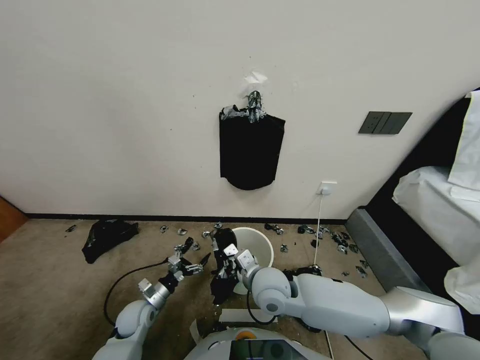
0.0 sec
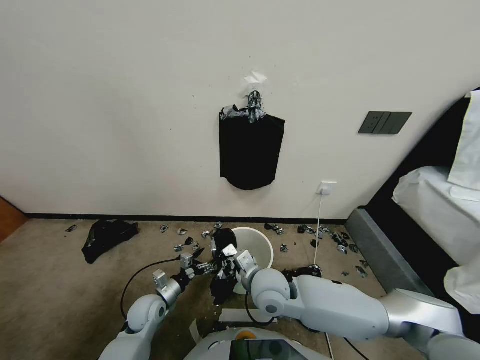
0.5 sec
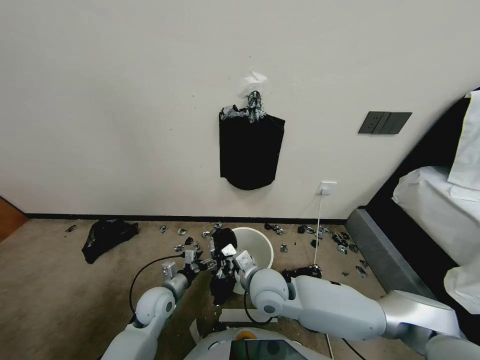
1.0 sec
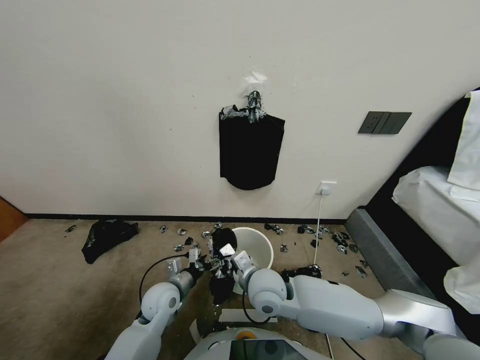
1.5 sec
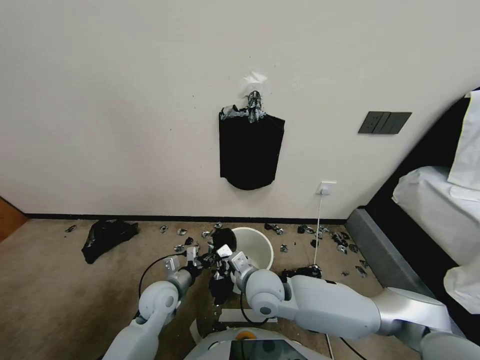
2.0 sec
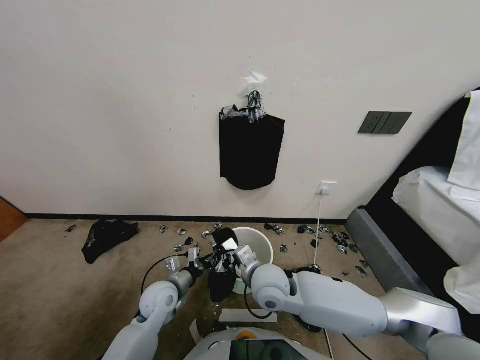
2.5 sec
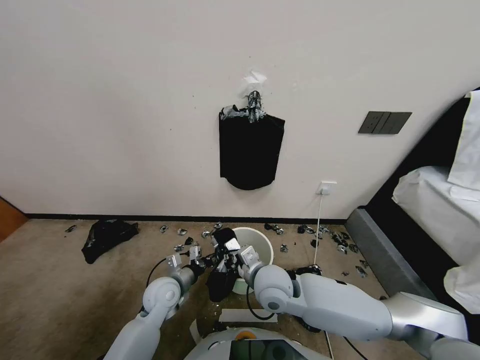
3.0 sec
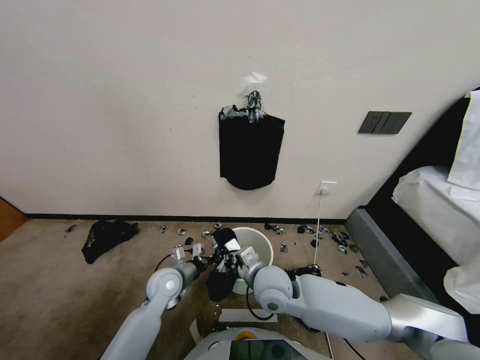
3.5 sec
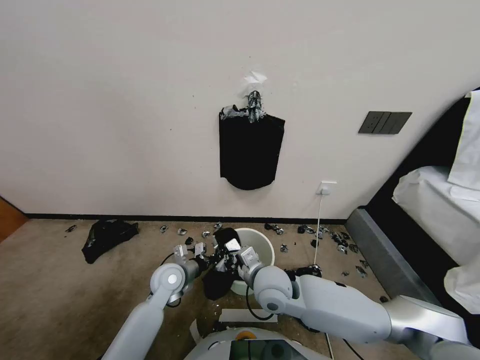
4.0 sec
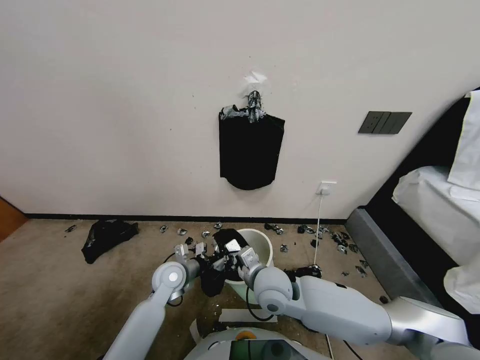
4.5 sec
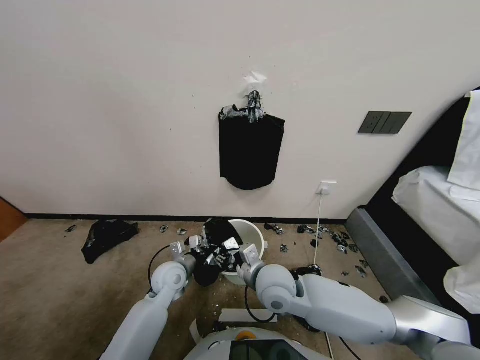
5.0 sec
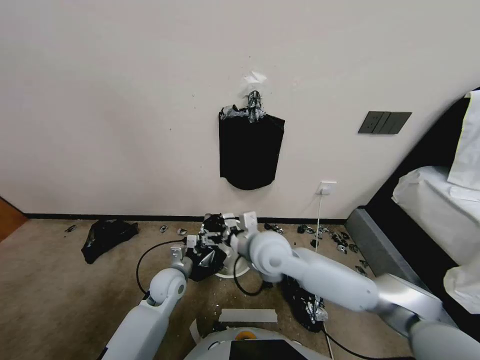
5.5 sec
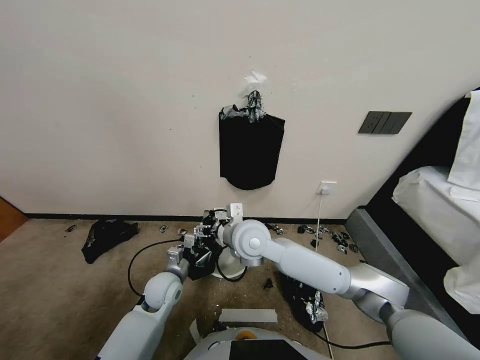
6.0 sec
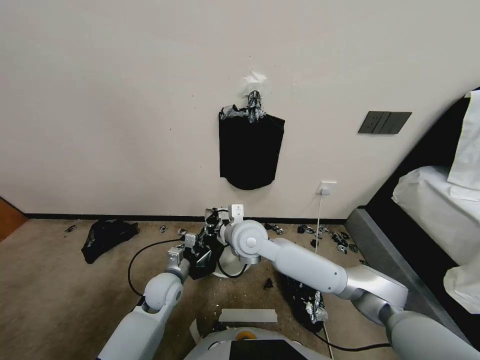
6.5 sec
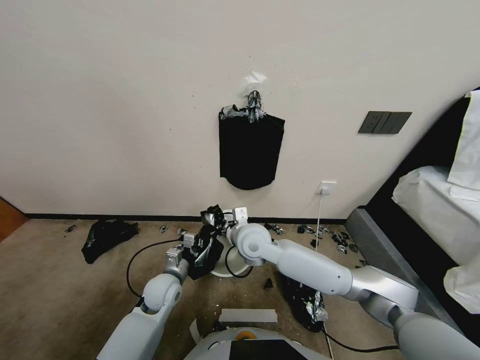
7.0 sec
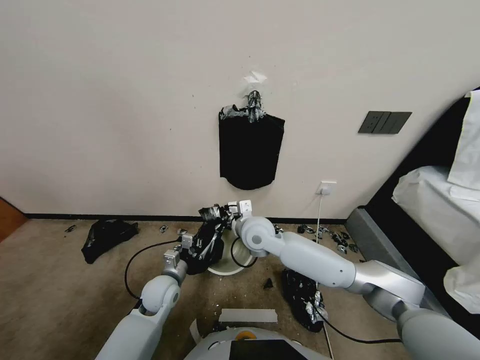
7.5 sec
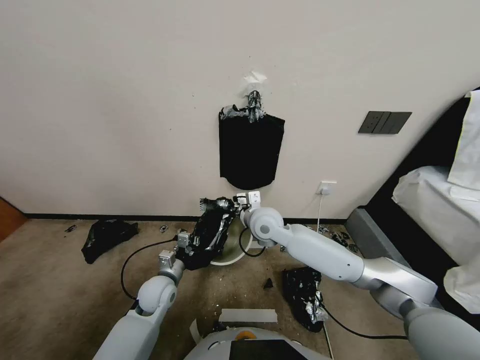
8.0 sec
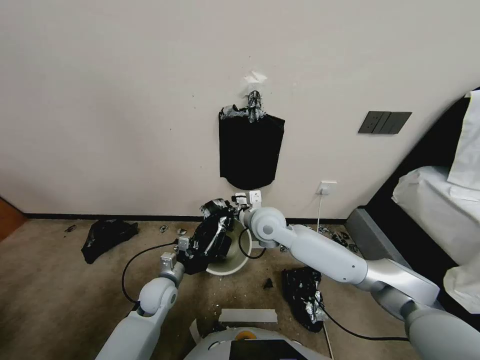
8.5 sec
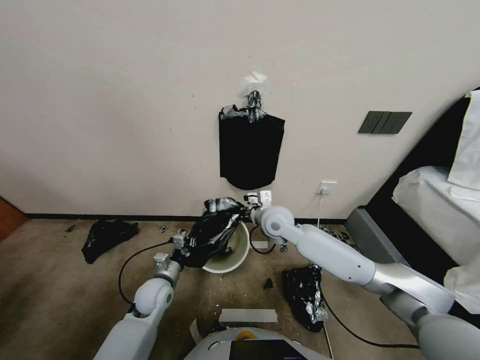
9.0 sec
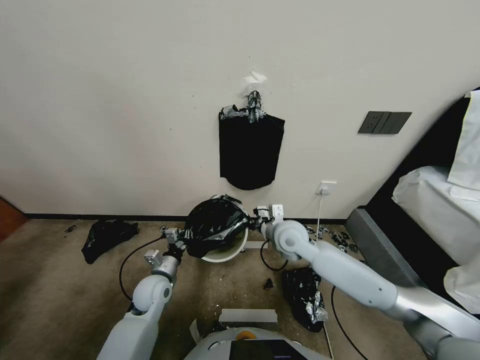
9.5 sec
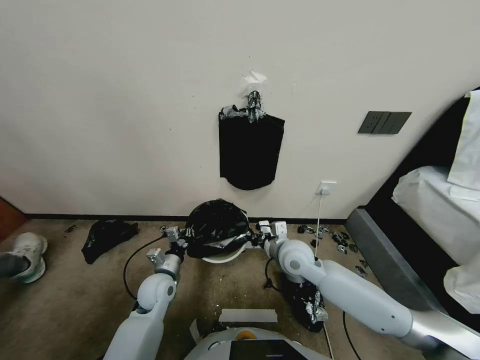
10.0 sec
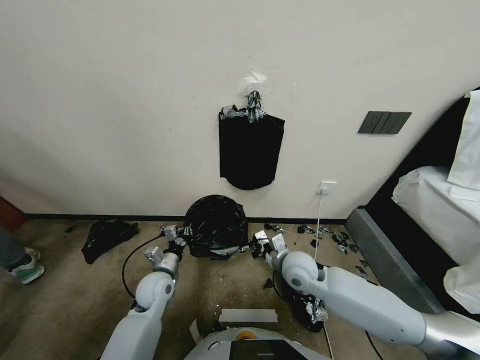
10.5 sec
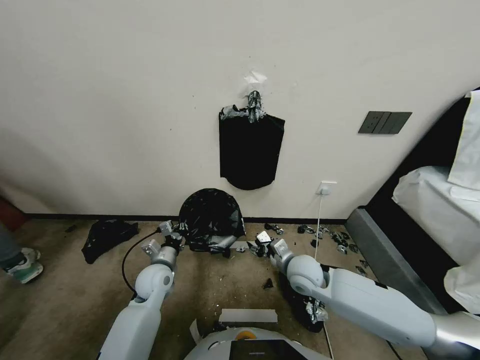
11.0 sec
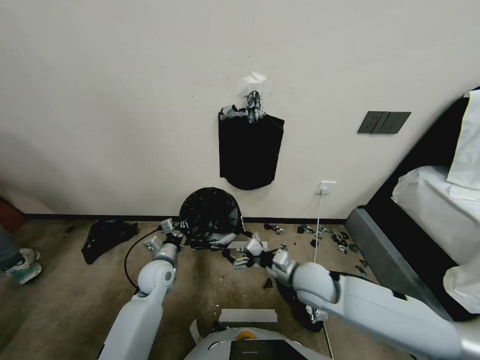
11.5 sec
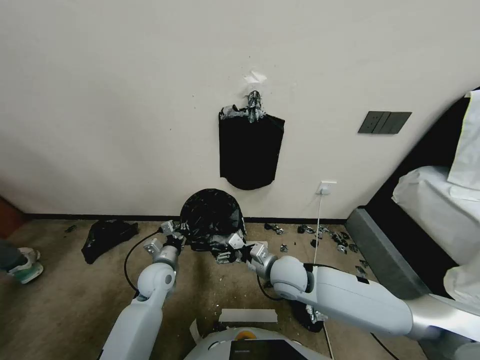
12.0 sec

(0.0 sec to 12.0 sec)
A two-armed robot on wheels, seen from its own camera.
Task of the whole recording: Place a trash bag onto the trash bin.
0.0 sec - 2.0 sec: The left gripper shifts roughly 10 cm upward and to the right, and closes its fingers.
2.0 sec - 4.0 sec: The left gripper heads forward, covering about 5 cm.
4.0 sec - 6.0 sec: The right gripper goes some 15 cm forward, upward and to the left, and opens its fingers.
6.0 sec - 8.0 sec: The right gripper travels to the right and forward by about 10 cm, and closes.
8.0 sec - 10.0 sec: The right gripper travels backward, to the right and downward by roughly 15 cm.
10.0 sec - 12.0 sec: The right gripper opens.

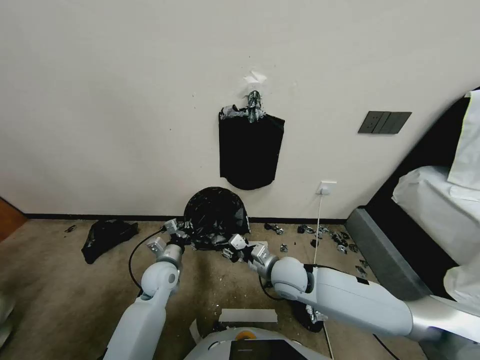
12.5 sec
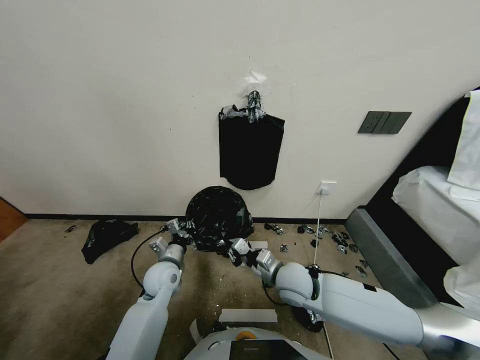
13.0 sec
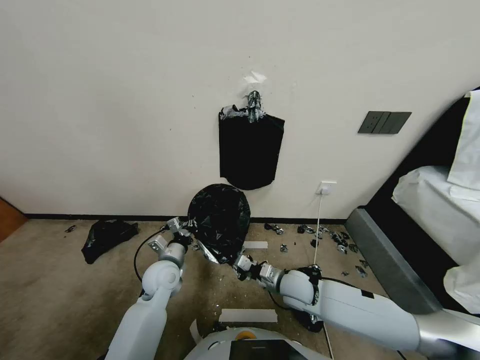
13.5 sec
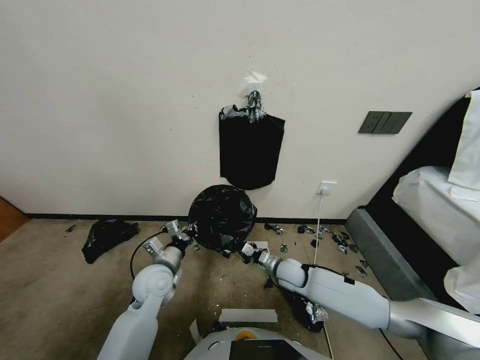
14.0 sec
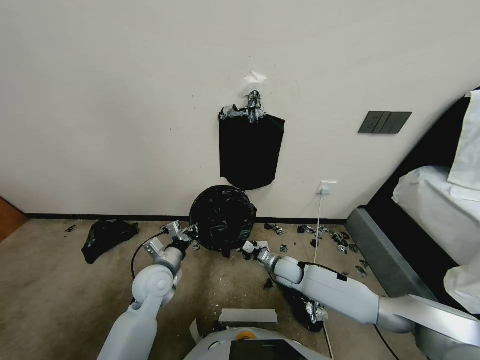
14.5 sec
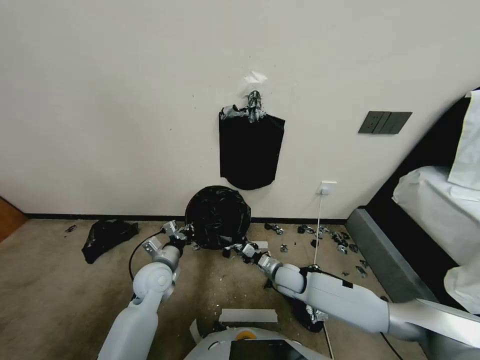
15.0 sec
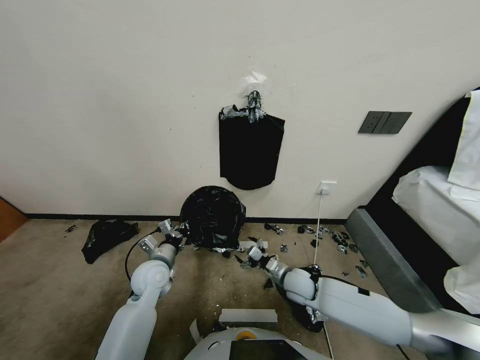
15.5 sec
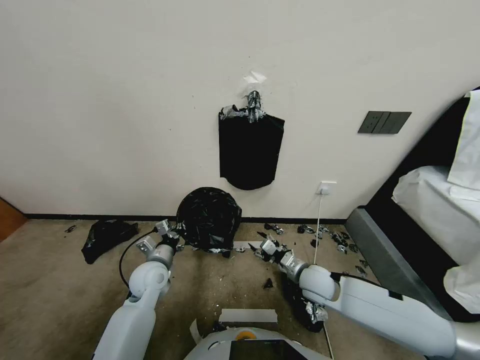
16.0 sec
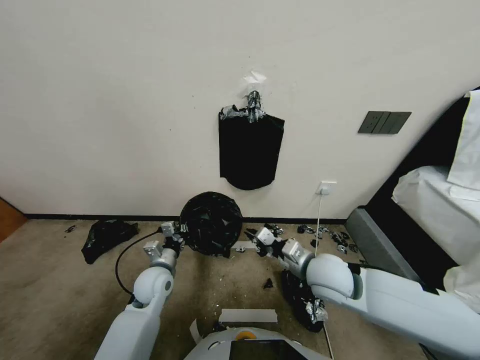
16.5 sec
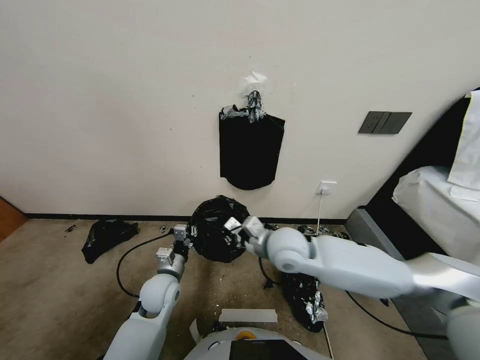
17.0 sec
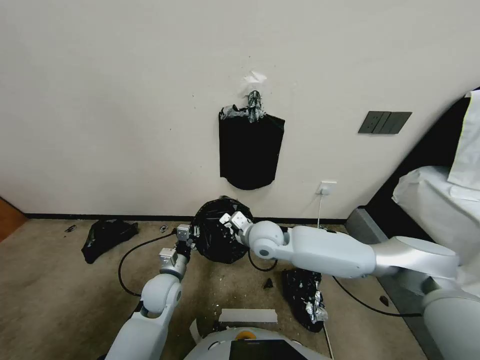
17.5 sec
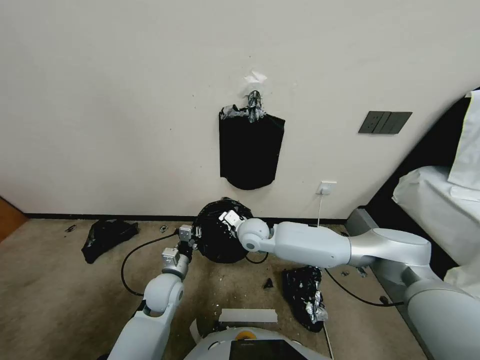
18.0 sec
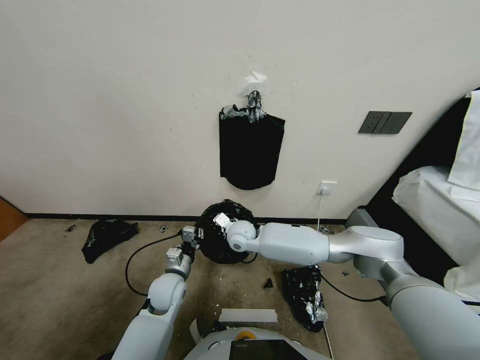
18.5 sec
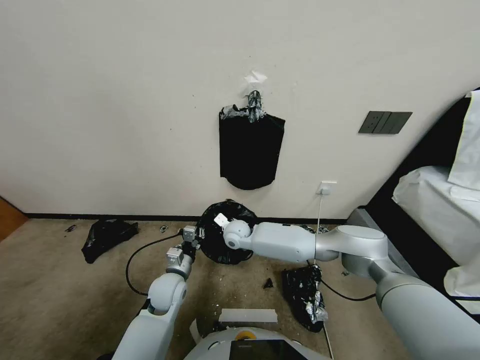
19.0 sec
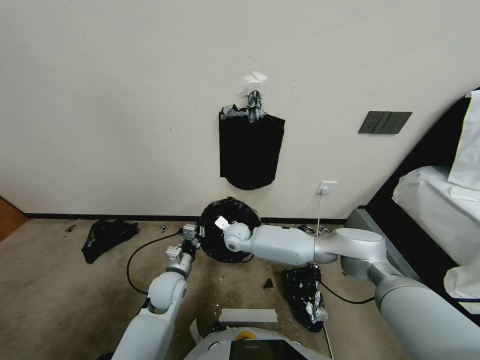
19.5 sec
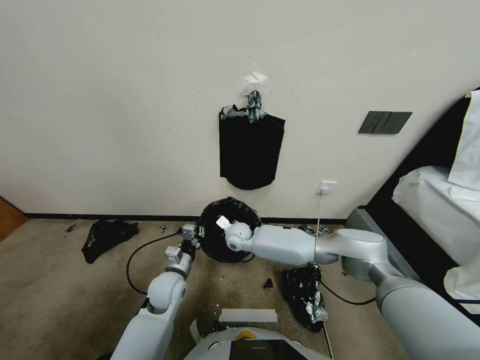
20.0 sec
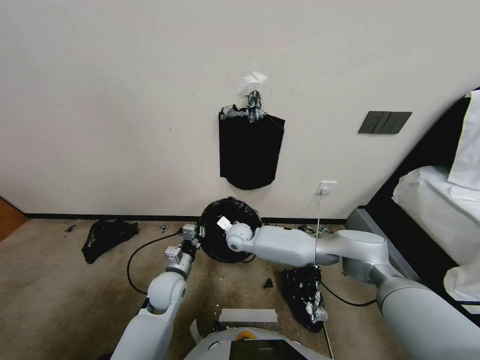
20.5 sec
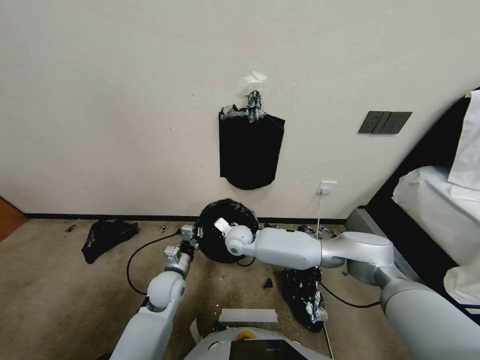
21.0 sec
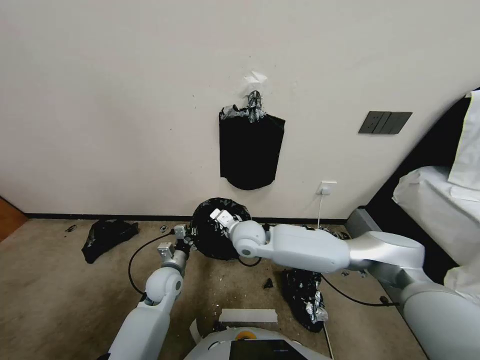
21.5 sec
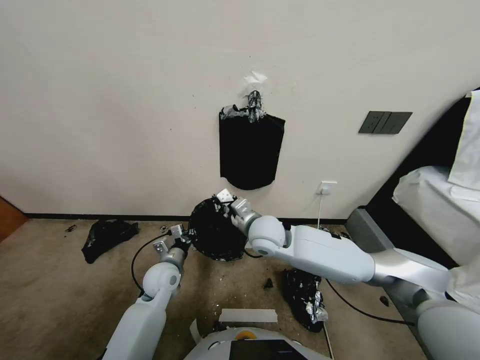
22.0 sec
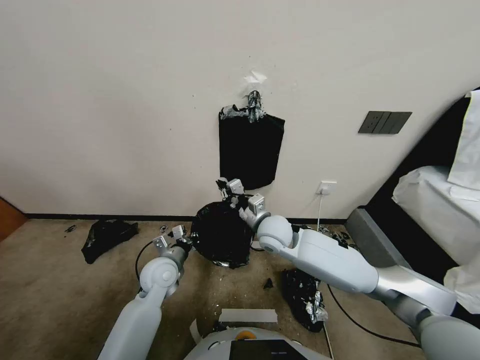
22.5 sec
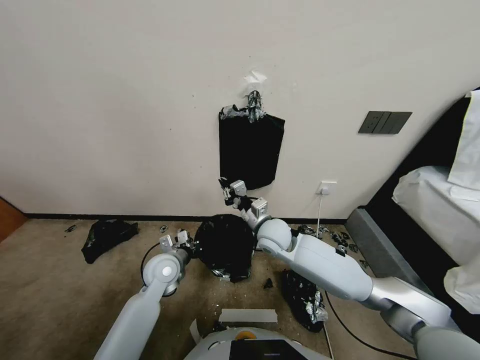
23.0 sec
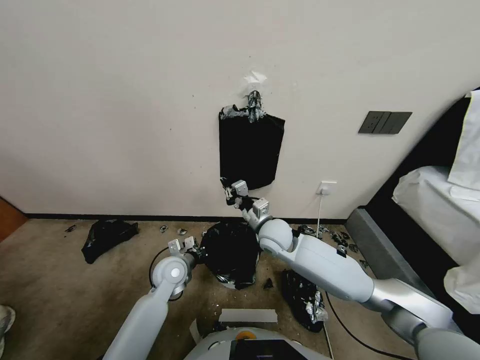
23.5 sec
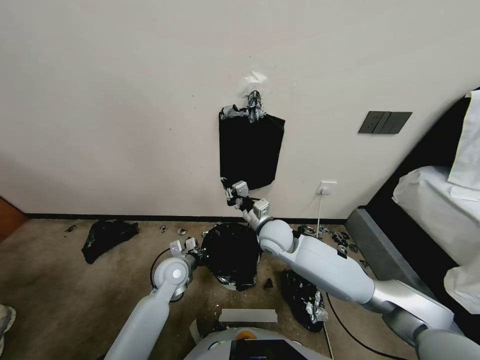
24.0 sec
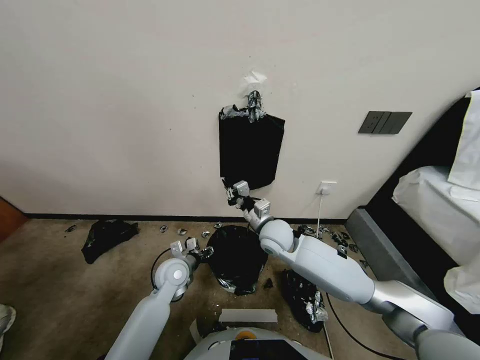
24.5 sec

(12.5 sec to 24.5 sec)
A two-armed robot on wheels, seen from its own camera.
Task of the whole recording: Place a trash bag onto the trash bin.
12.5 sec - 14.5 sec: The right gripper is displaced downward and forward by about 15 cm.
14.5 sec - 16.5 sec: The right gripper goes about 25 cm upward, and opens and closes again.
16.5 sec - 18.5 sec: The right gripper goes approximately 25 cm to the left, forward and downward.
18.5 sec - 20.5 sec: There are only small adjustments of the grippers.
20.5 sec - 22.5 sec: The left gripper changes place by roughly 5 cm. Meanwhile the right gripper goes about 15 cm upward, to the right and backward.
22.5 sec - 24.5 sec: The left gripper opens.

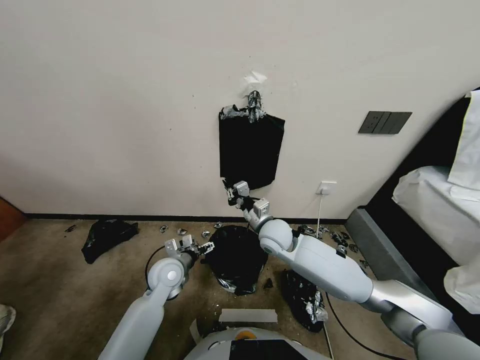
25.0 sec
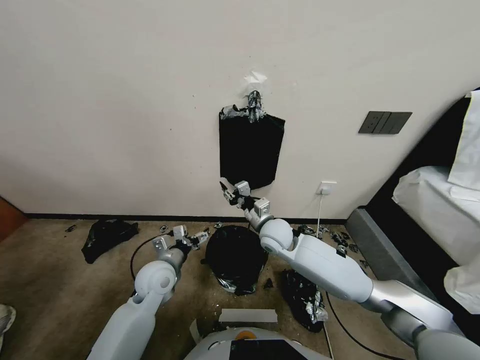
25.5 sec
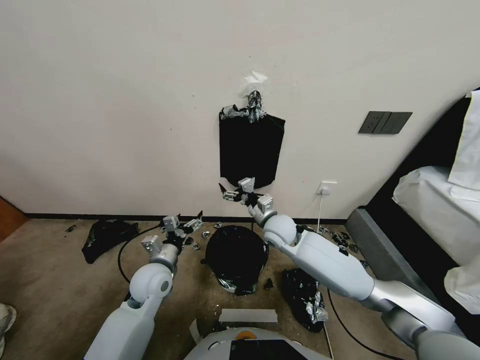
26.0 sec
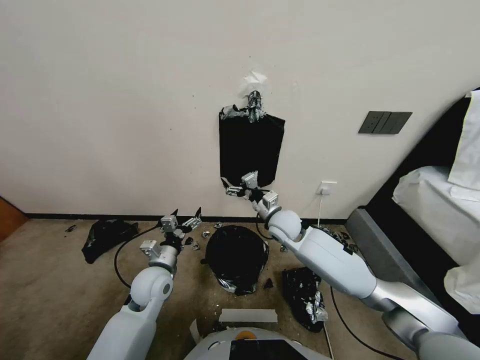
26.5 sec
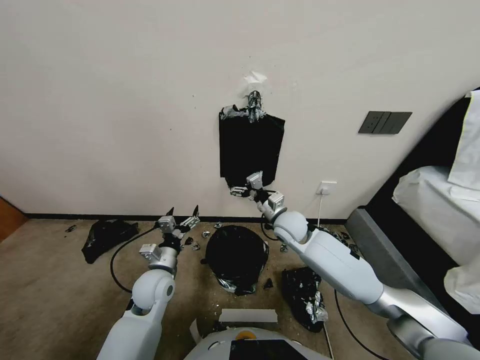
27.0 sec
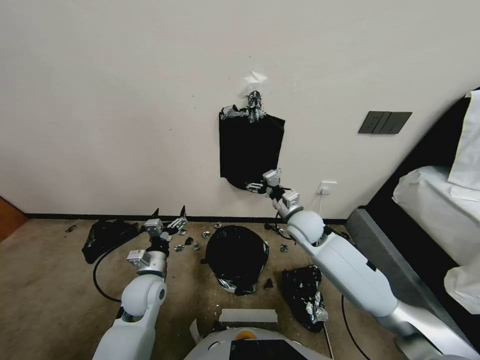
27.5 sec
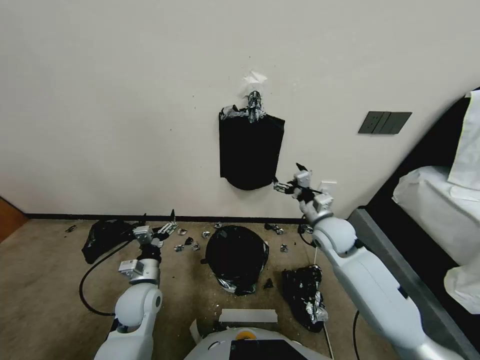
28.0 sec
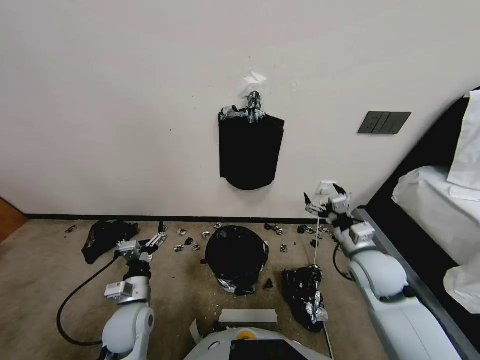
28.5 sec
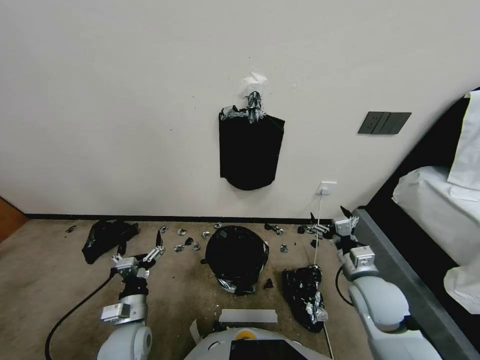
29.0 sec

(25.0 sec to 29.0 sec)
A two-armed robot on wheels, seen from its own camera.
Task of the whole recording: Place a trash bag onto the trash bin.
25.0 sec - 27.0 sec: The right gripper is displaced to the right by some 5 cm, and opens up.
27.0 sec - 29.0 sec: The left gripper is displaced backward and downward by about 15 cm, while the right gripper moves backward and to the right, approximately 25 cm.
